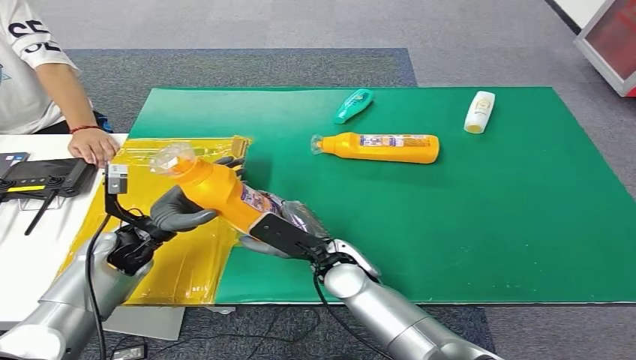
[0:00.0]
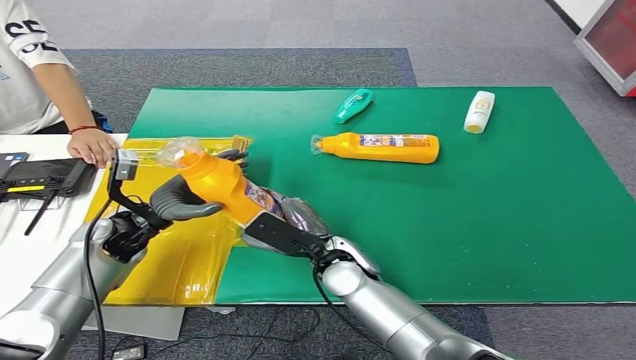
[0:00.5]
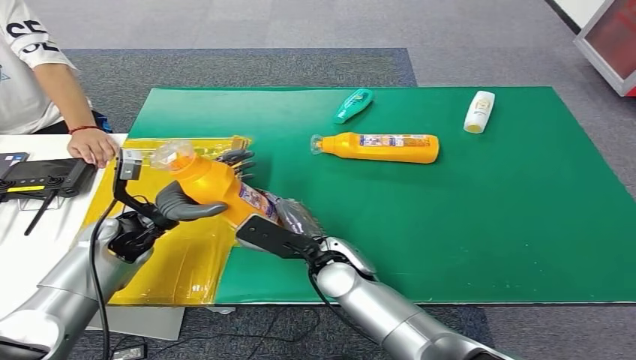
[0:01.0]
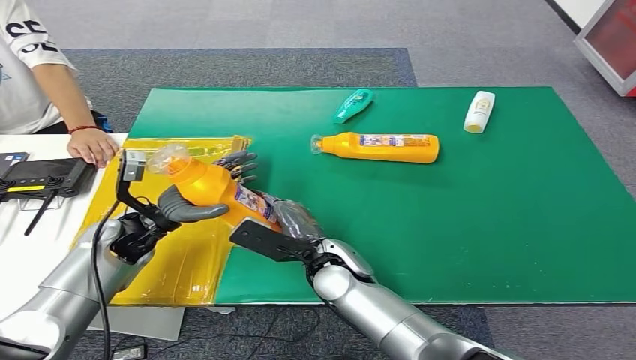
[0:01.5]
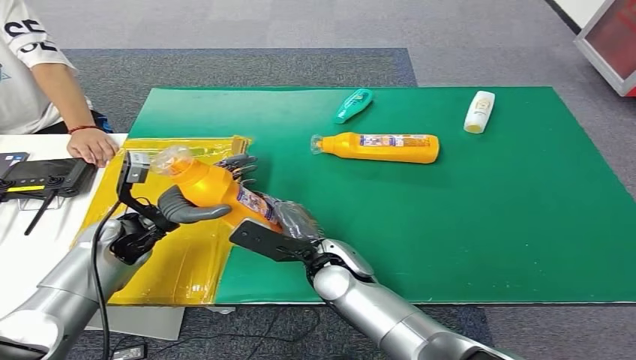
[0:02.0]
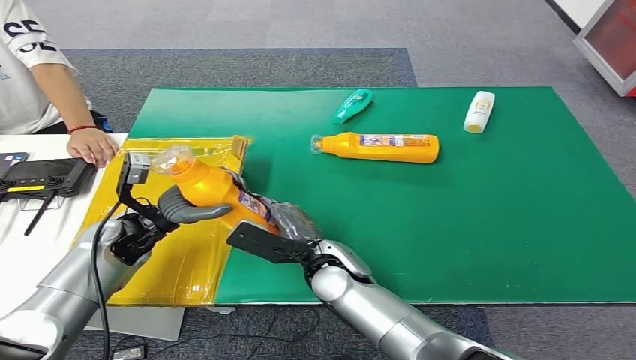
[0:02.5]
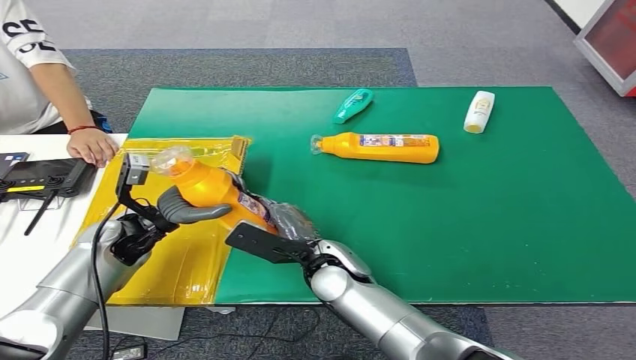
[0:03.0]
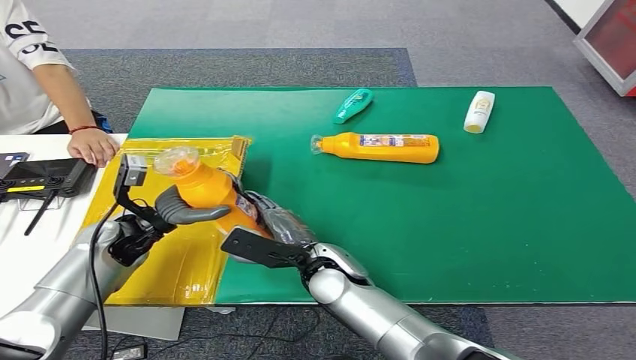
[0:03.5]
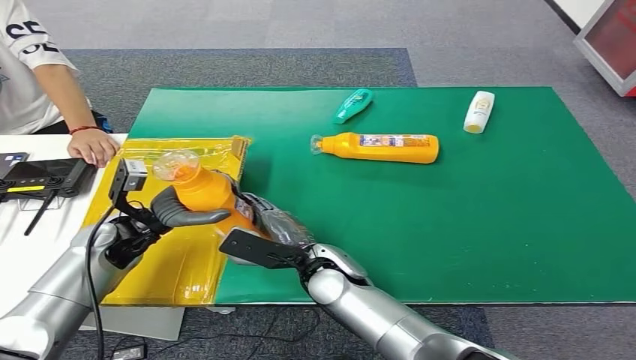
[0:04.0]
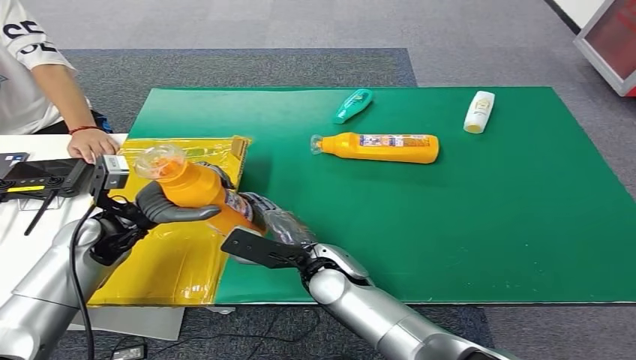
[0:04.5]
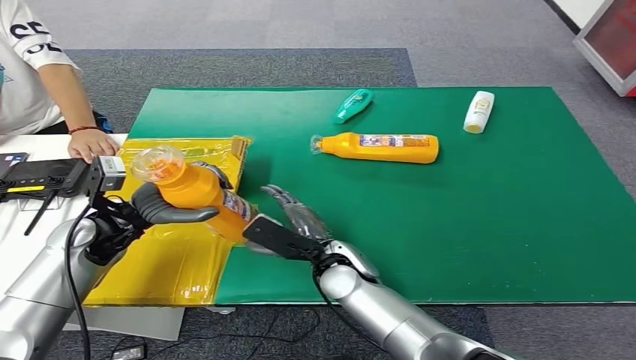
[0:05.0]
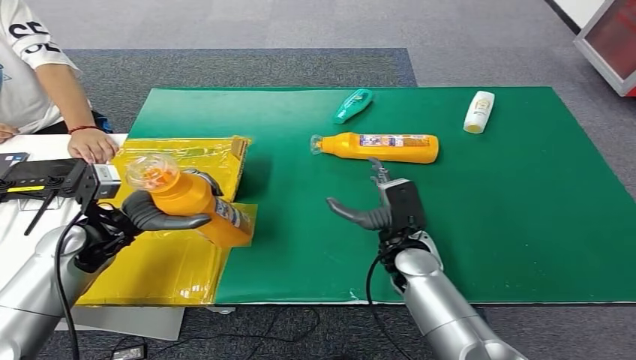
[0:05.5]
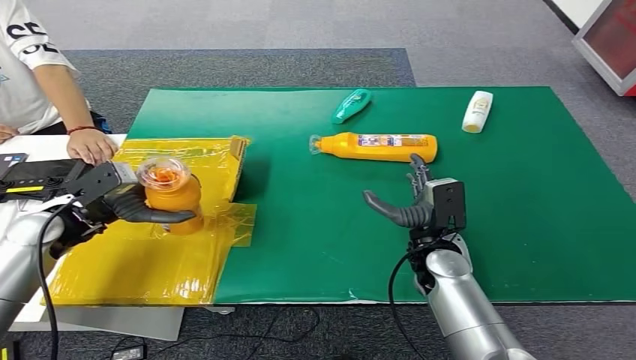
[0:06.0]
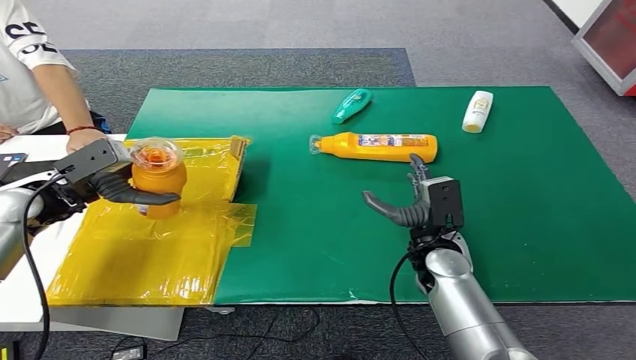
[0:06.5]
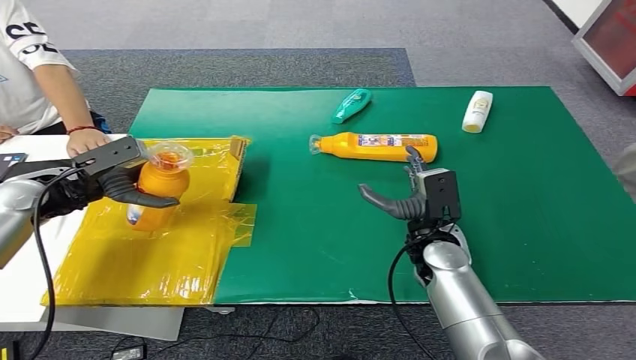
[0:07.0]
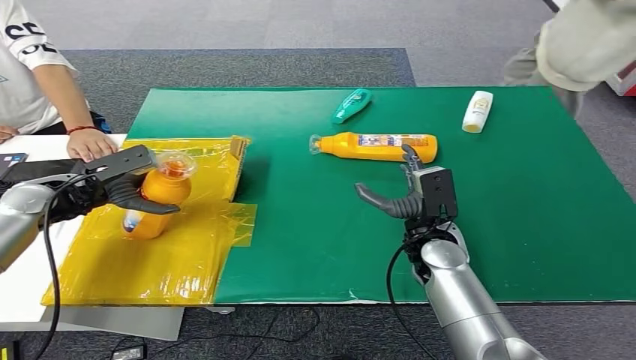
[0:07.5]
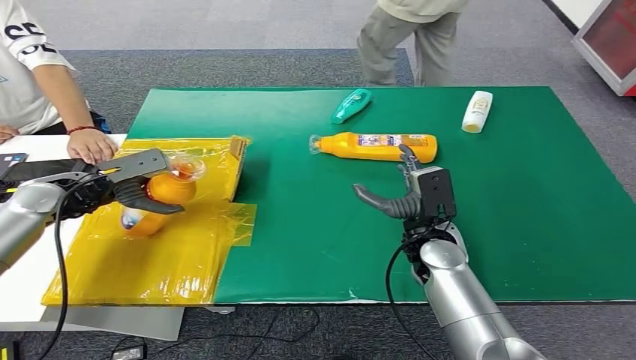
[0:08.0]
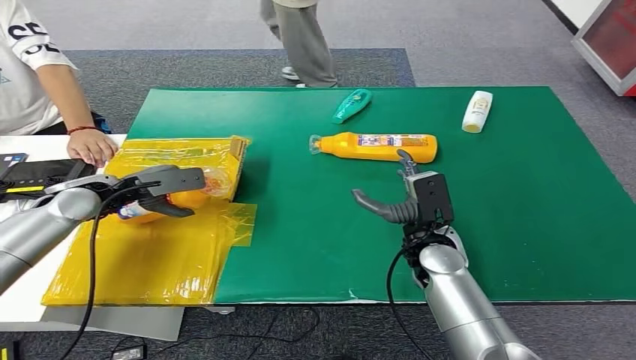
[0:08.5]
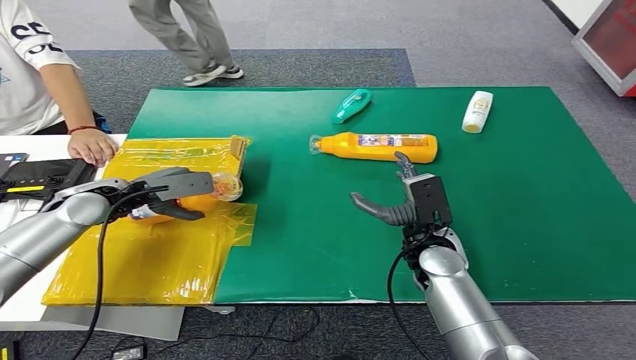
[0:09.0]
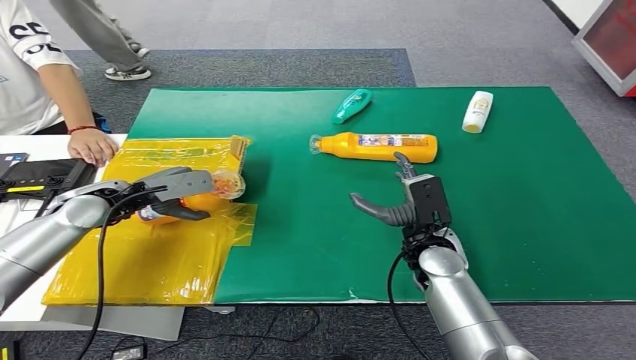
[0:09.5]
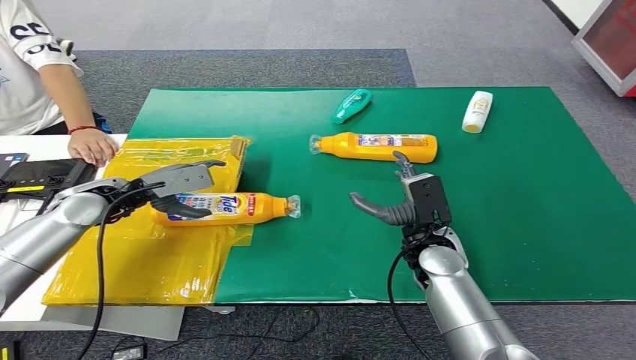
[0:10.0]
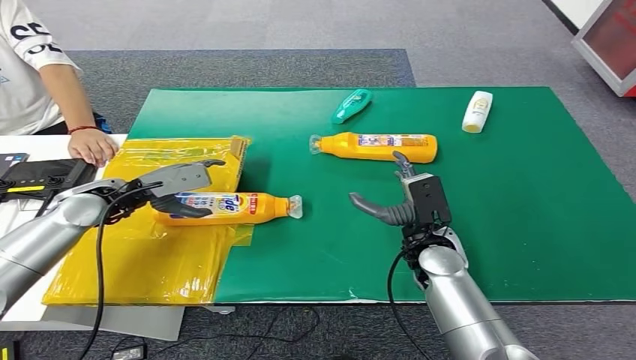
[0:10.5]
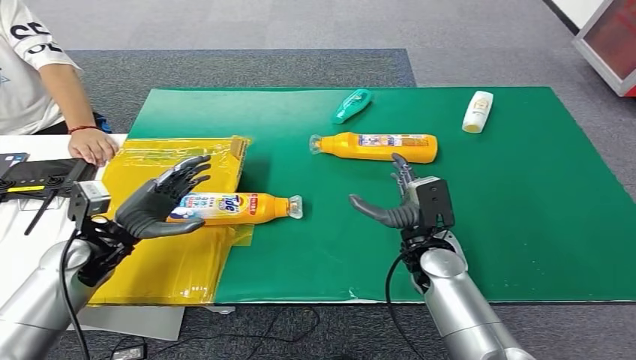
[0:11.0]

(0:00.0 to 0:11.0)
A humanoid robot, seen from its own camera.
Step, 0:00.0 - 0:11.0: Turn the bottle to the front side.
0:00.0 - 0:02.0: The hands move only a little.
0:02.0 - 0:03.5: Both hands stay put.
0:07.5 - 0:09.0: The left hand is displaced to the right by some 5 cm.
0:09.0 - 0:11.0: The left hand travels backward by roughly 10 cm.
